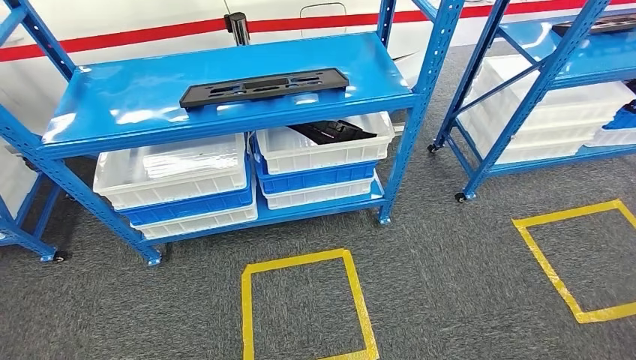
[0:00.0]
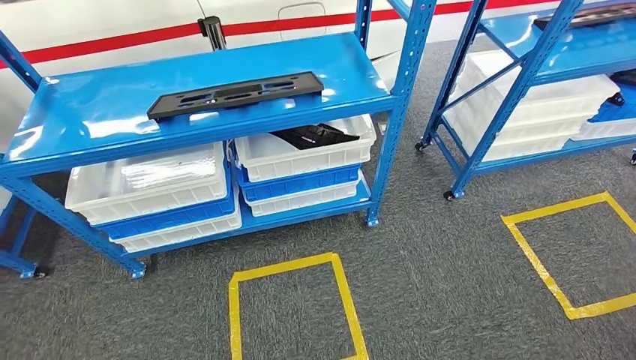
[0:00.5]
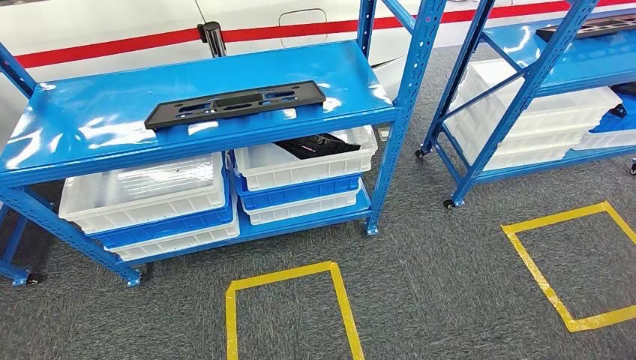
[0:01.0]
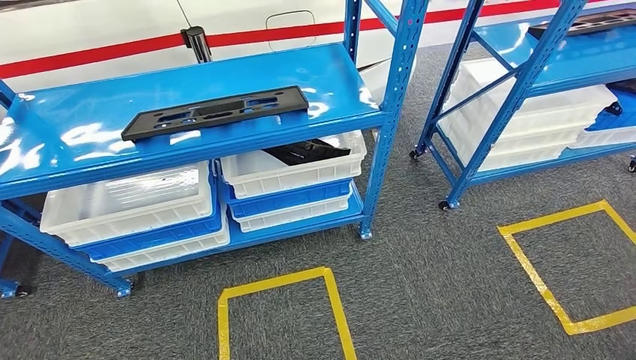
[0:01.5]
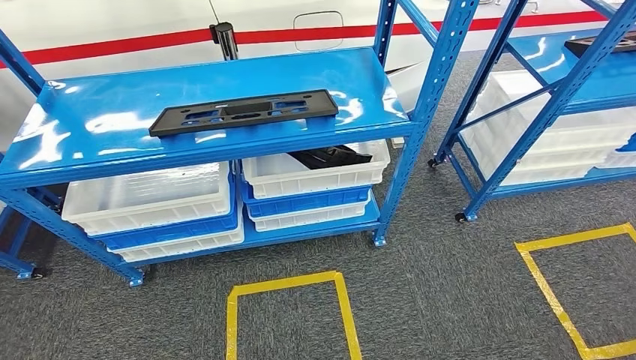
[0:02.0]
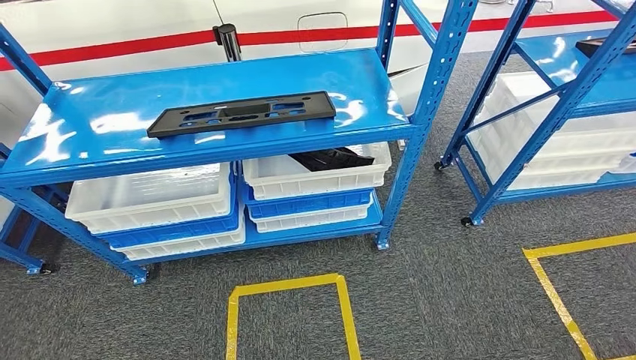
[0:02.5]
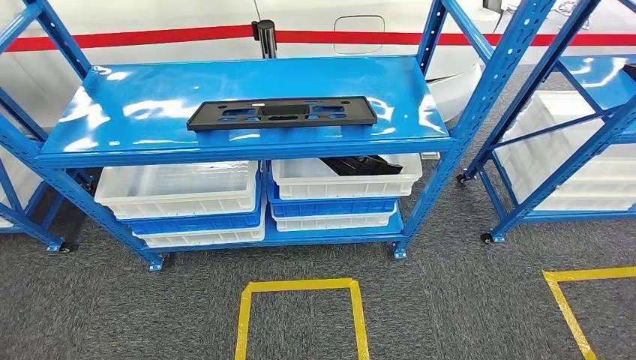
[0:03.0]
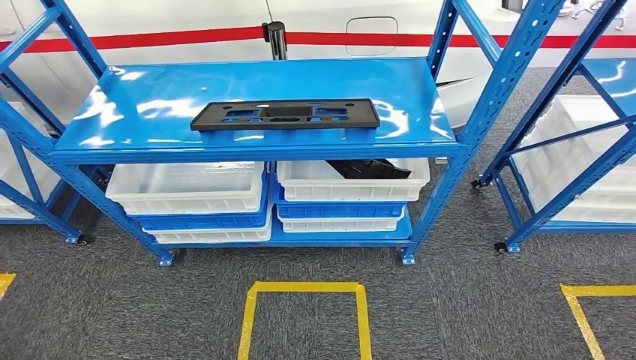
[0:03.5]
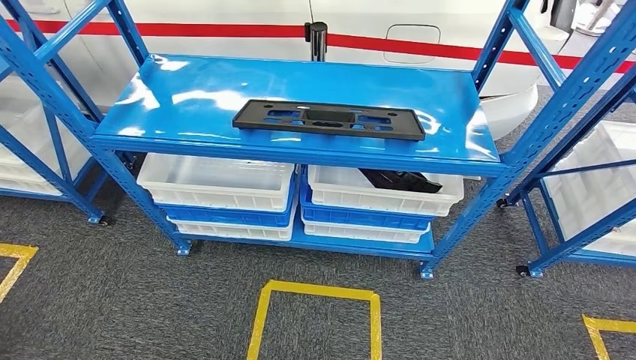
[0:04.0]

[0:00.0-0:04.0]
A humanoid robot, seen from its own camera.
Step, 0:00.0 to 0:04.0: Move to the initial position of the shelf.
